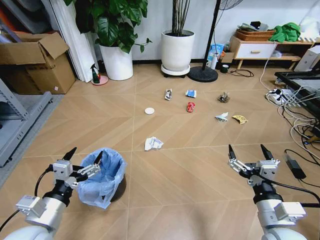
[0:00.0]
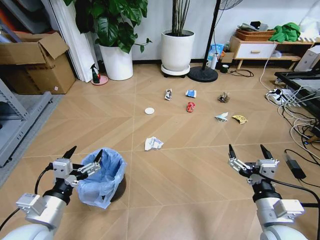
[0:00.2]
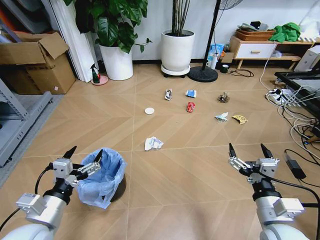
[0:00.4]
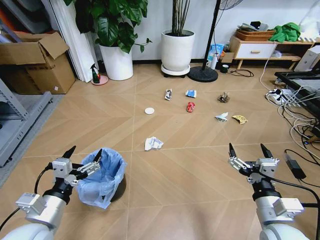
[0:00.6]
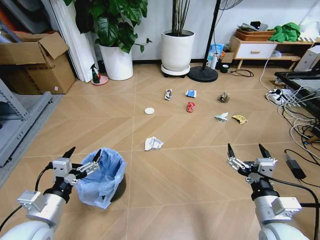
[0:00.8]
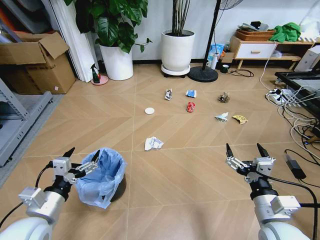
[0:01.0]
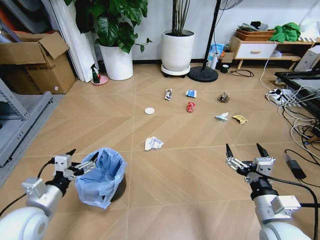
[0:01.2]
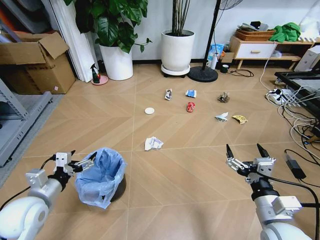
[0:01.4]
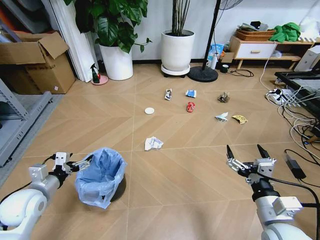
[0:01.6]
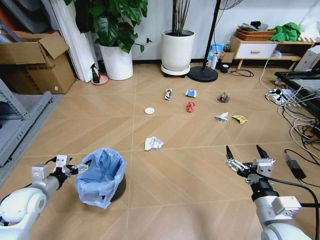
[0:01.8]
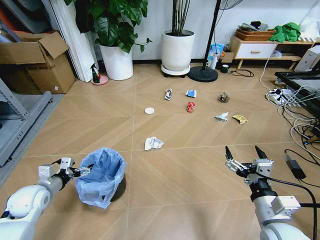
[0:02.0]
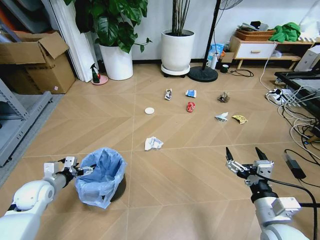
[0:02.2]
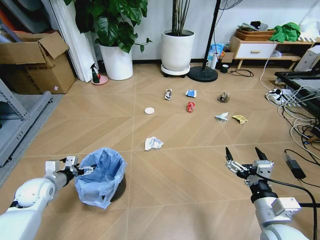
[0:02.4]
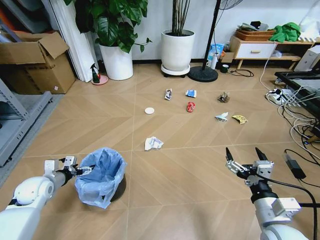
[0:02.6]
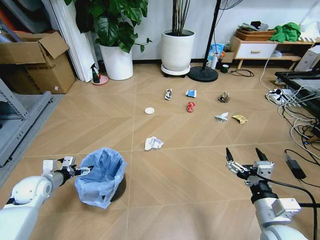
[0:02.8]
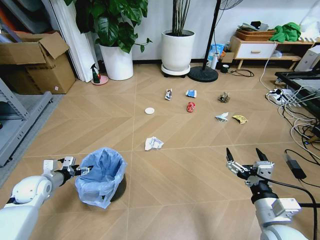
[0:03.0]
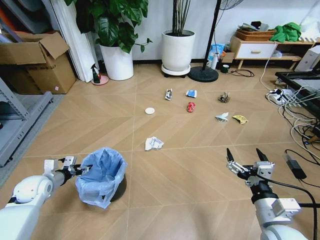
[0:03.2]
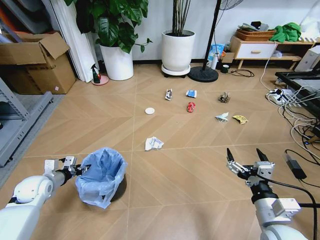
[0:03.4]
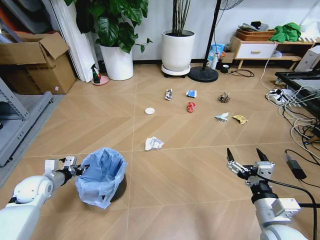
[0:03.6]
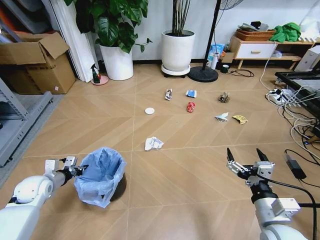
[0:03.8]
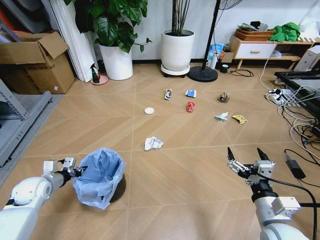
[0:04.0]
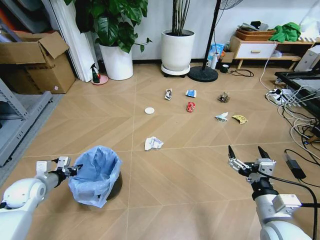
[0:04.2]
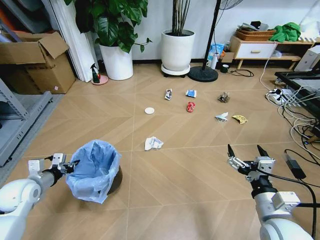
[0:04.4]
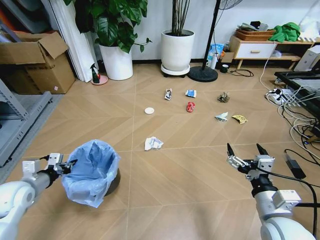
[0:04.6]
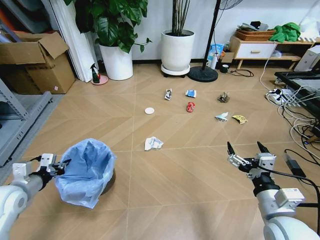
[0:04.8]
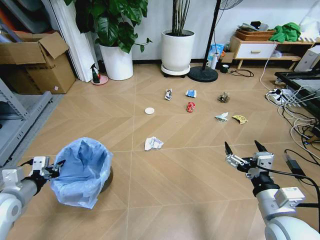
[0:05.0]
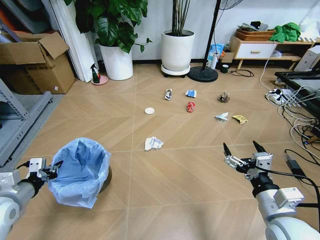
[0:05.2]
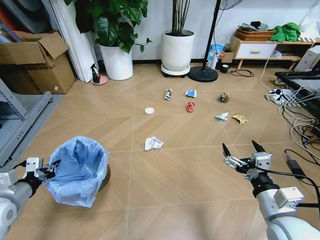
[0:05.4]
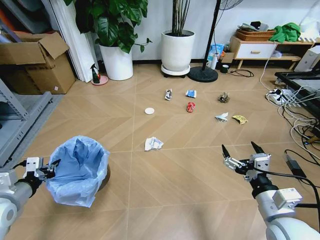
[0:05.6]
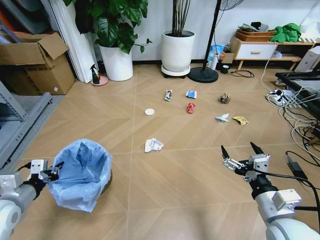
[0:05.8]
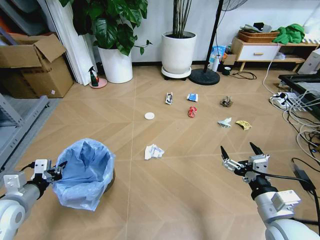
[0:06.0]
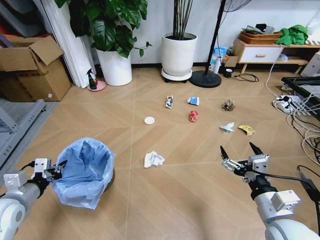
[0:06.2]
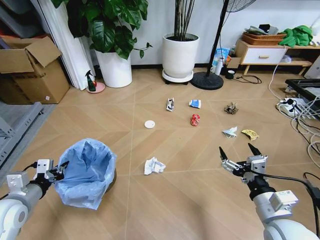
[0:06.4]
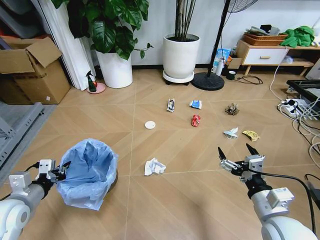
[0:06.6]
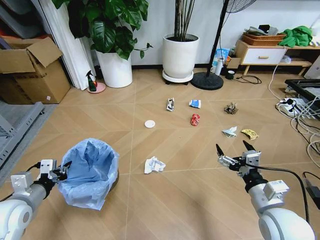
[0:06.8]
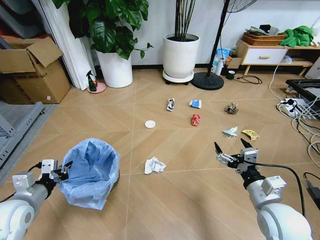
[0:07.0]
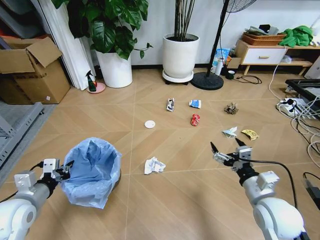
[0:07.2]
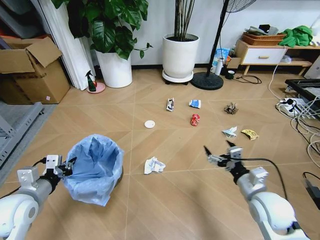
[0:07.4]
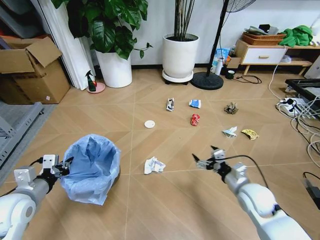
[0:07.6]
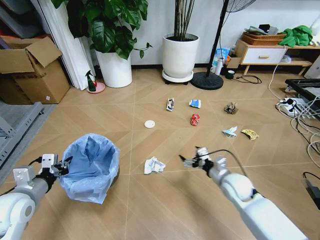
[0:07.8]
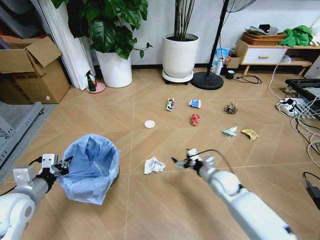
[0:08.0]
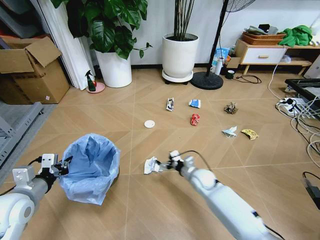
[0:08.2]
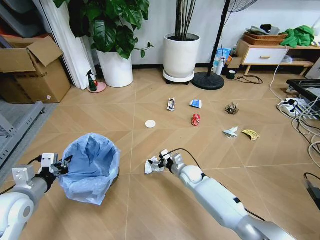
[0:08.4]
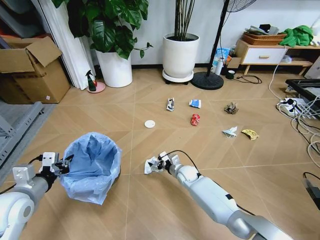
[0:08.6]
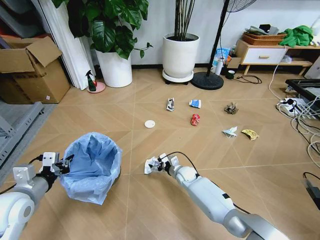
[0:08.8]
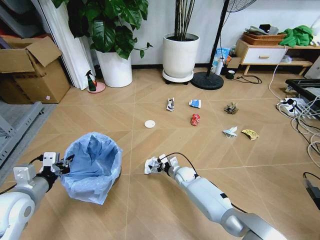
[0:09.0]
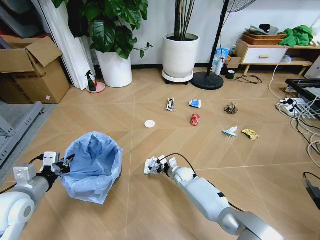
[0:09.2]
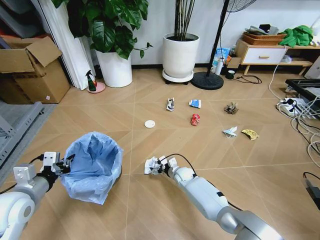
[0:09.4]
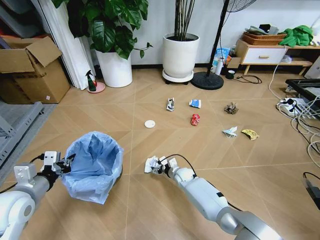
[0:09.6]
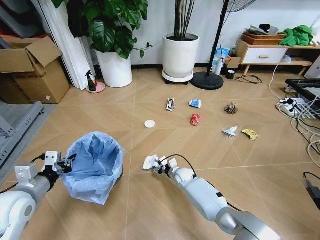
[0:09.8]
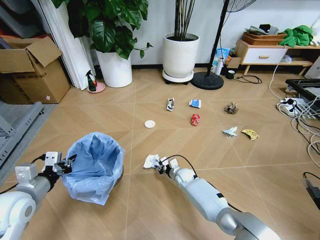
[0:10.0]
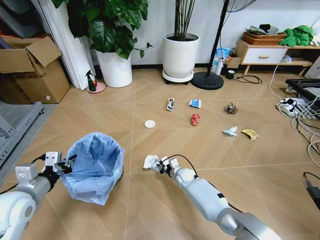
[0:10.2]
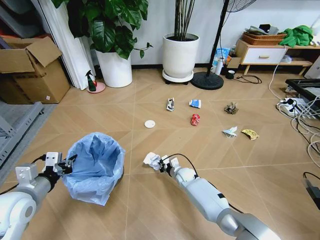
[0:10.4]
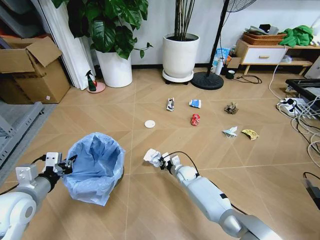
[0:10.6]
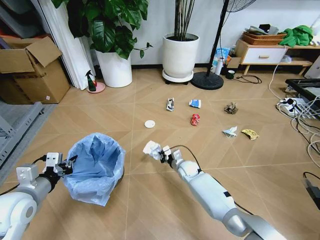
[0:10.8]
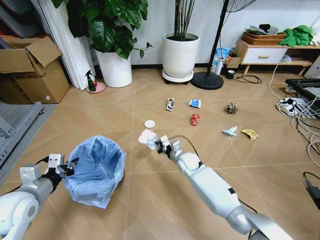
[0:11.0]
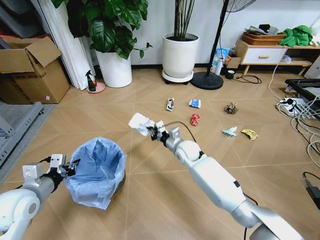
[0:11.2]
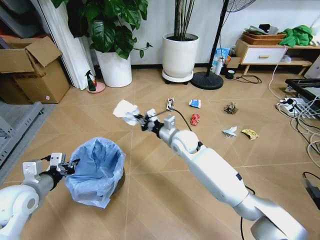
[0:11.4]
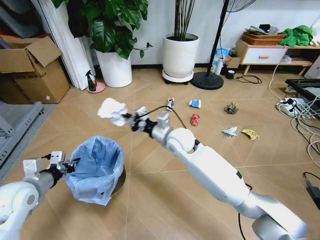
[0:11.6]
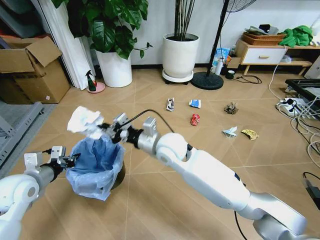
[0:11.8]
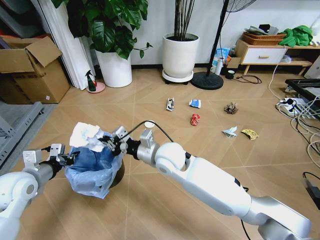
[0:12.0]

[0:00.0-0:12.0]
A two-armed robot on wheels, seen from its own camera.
Task of the whole recording: Pick up the trash bin and place the garbage on the floor into it.
0:01.6 to 0:03.0: The left gripper shifts some 10 cm forward, downward and to the left.
0:03.0 to 0:04.4: The left gripper moves about 5 cm, and closes.
0:04.4 to 0:06.0: The left gripper moves backward and upward, about 10 cm.
0:06.0 to 0:07.6: The right gripper shifts roughly 15 cm forward and downward.
0:07.6 to 0:09.0: The right gripper heads downward, to the left and forward, covering roughly 30 cm.
0:09.0 to 0:10.4: The right gripper closes up.
0:10.4 to 0:12.0: The right gripper is displaced upward by about 30 cm, while the left gripper shifts some 5 cm forward.

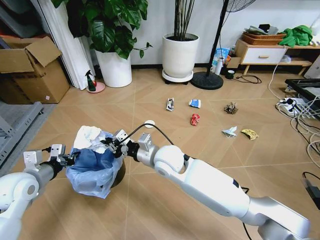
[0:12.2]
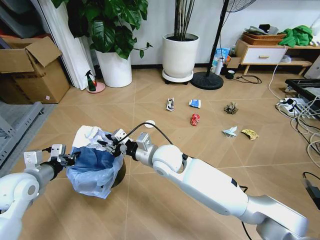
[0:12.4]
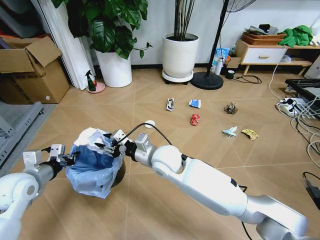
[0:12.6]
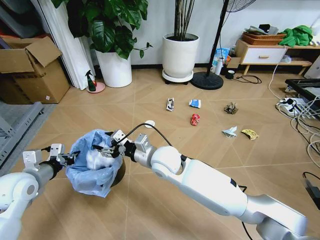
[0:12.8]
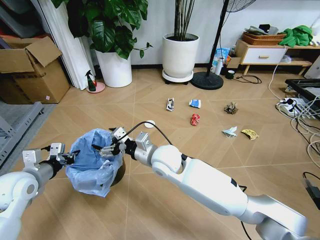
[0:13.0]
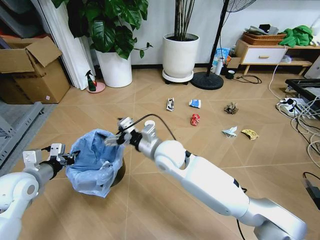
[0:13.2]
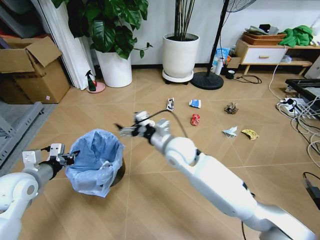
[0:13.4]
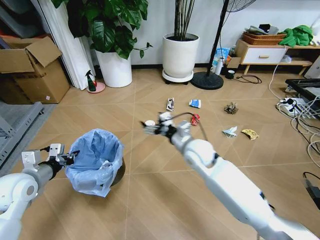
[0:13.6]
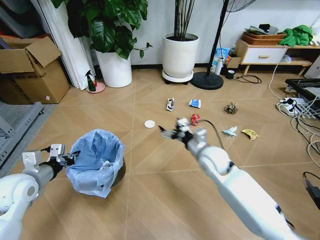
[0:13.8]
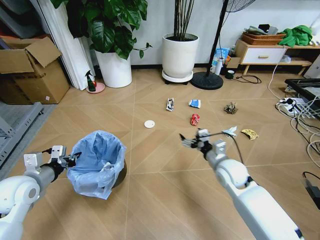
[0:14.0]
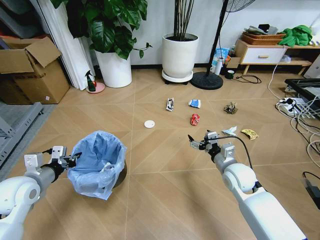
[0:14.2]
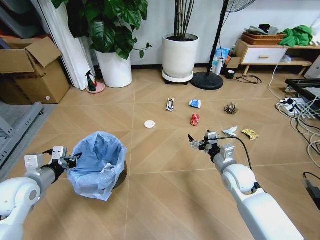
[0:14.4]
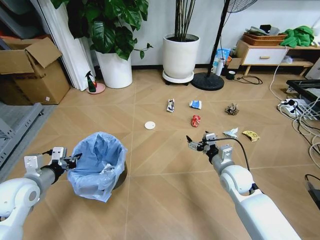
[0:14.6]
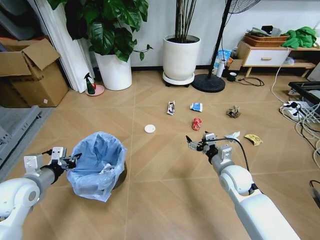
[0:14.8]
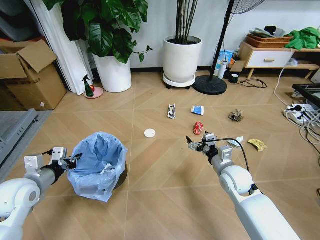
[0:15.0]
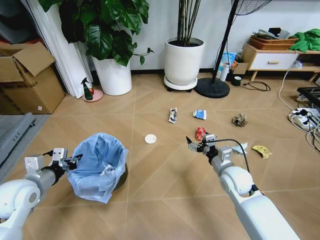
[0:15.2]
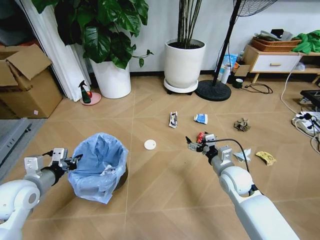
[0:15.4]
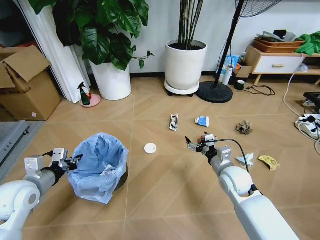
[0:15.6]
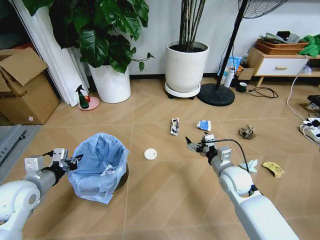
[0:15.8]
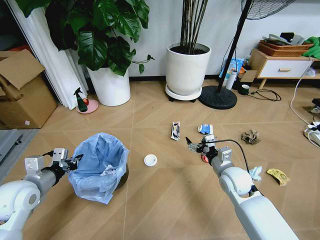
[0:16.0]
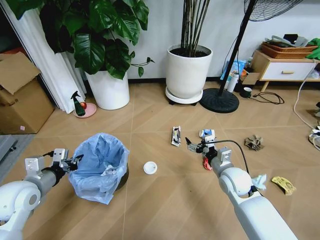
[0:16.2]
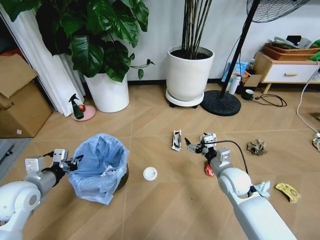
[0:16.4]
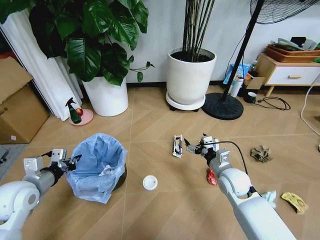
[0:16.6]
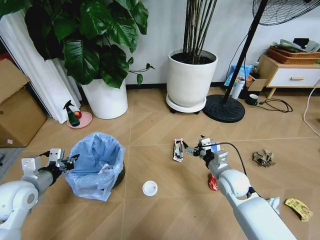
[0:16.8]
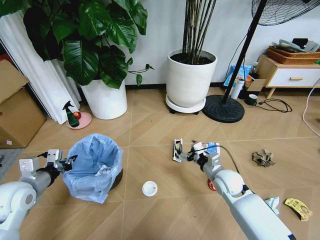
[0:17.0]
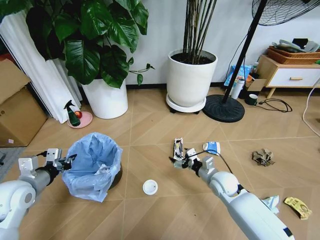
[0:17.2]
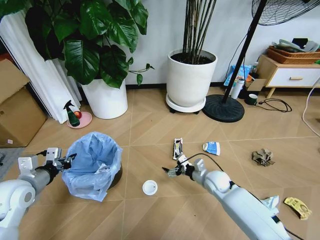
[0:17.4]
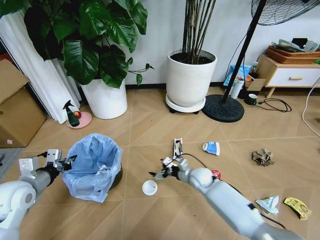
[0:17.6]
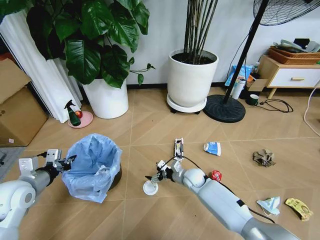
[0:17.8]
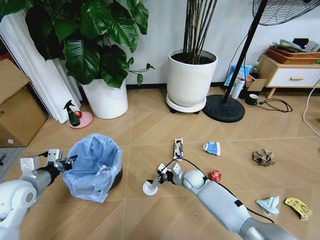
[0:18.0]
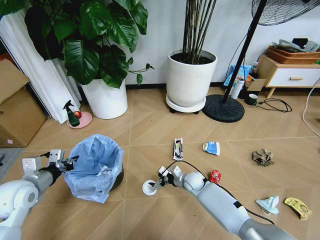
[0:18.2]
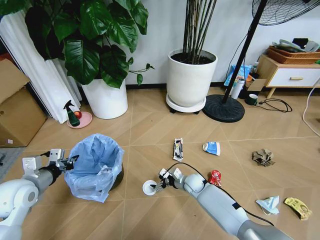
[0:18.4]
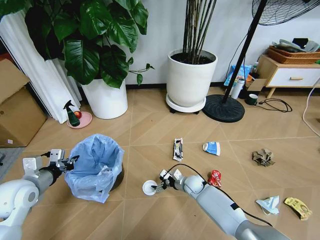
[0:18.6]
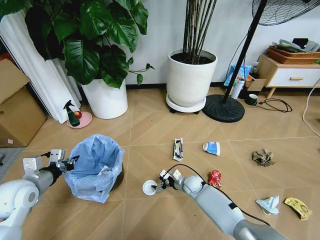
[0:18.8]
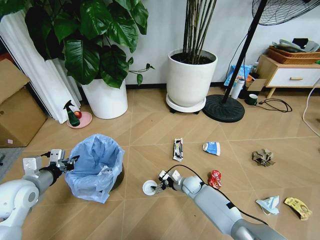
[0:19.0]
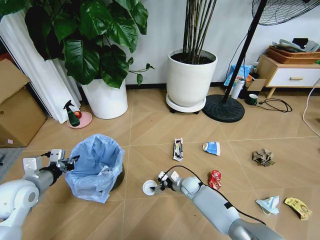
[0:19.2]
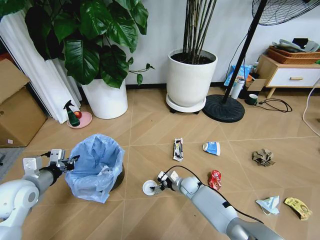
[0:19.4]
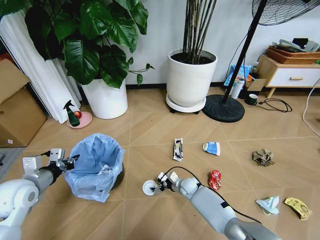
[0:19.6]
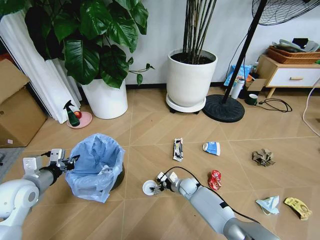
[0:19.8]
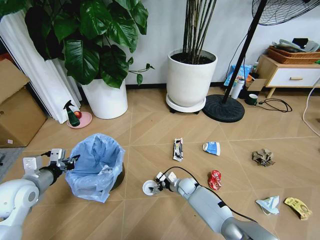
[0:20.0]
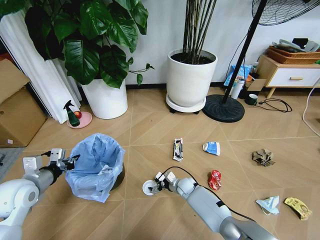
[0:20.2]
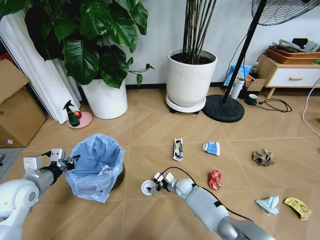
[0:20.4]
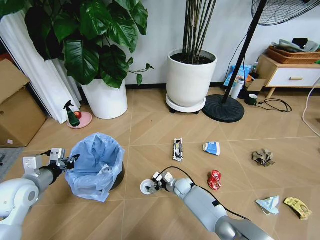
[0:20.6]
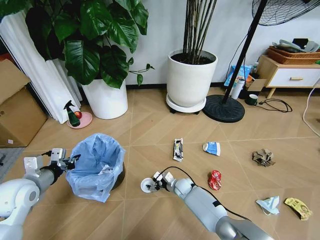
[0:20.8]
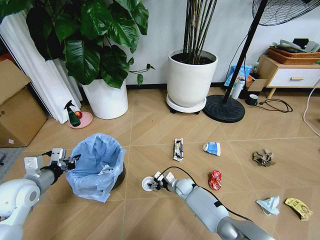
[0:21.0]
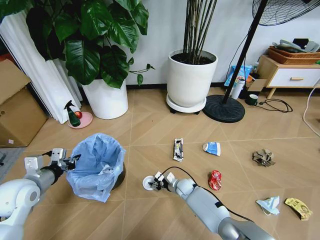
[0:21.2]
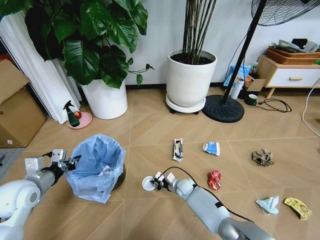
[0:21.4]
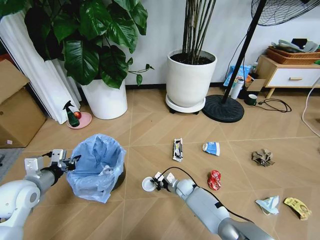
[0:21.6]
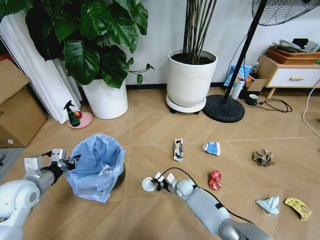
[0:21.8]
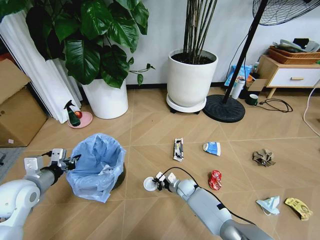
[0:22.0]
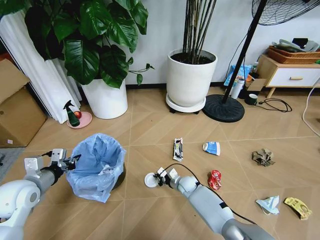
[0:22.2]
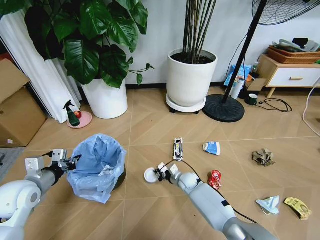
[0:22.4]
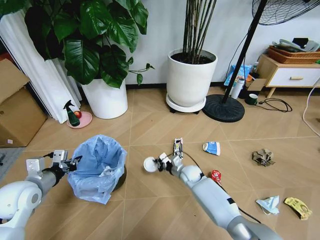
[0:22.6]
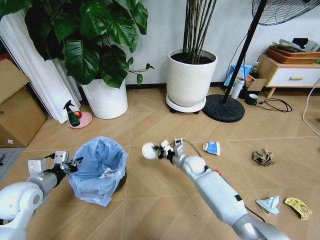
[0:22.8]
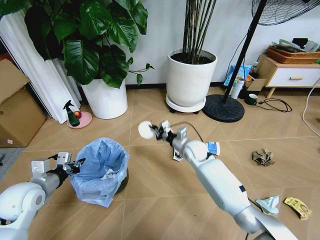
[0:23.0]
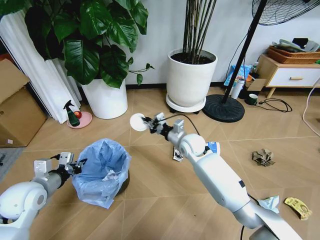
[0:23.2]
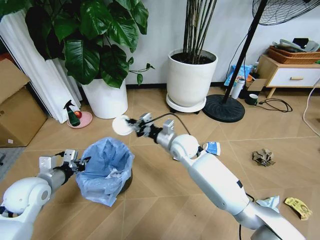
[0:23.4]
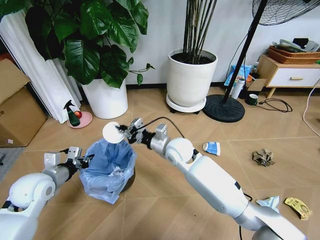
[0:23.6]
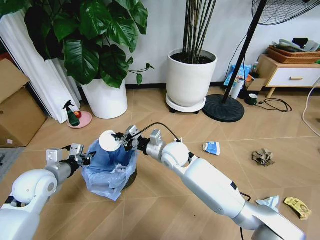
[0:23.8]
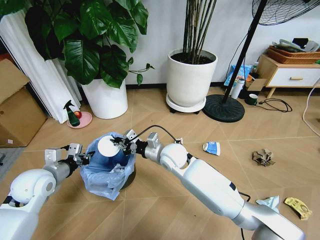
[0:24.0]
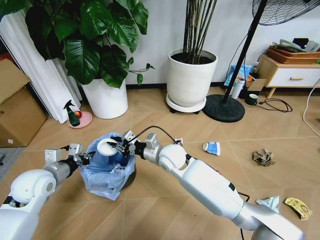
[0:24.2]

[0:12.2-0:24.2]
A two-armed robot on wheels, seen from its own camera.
Task of the whole recording: Pick up the trash bin and place the garbage on the floor into it.
0:12.2 to 0:13.8: The right gripper heads to the right, covering about 15 cm, and opens up.
0:13.8 to 0:15.2: The right gripper goes roughly 5 cm to the right.
0:16.6 to 0:18.2: The right gripper heads downward, to the left and forward, covering about 20 cm.
0:18.2 to 0:19.8: The right gripper travels downward by some 5 cm.
0:19.8 to 0:21.2: The right gripper closes up.
0:21.2 to 0:22.6: The right gripper shifts roughly 10 cm upward, and closes up.
0:22.6 to 0:24.2: The right gripper goes about 20 cm upward and to the left.
